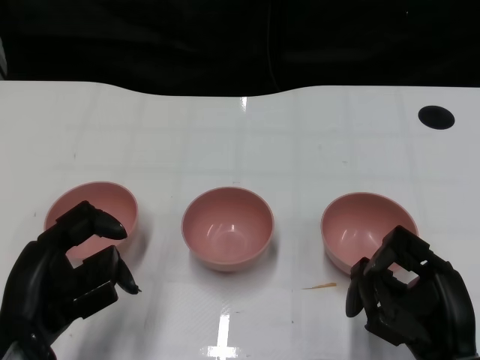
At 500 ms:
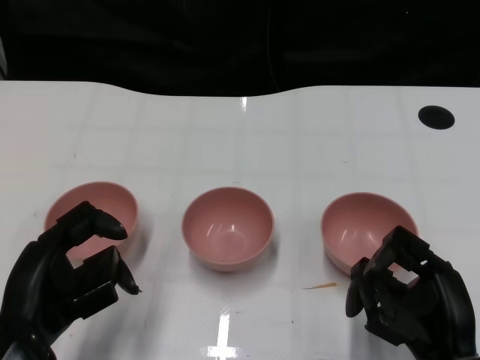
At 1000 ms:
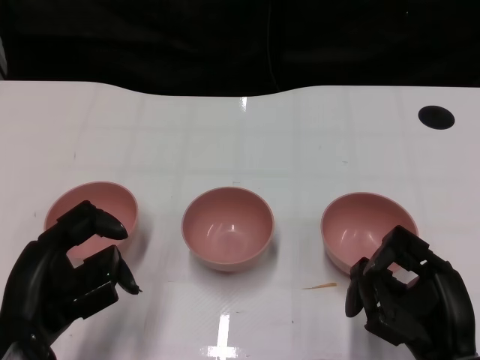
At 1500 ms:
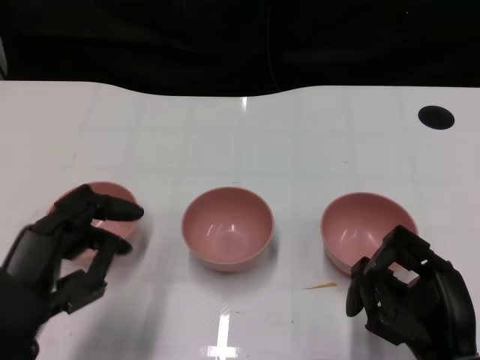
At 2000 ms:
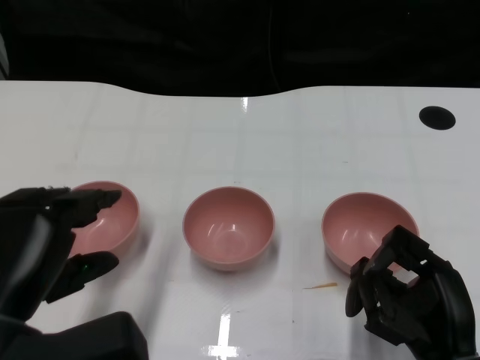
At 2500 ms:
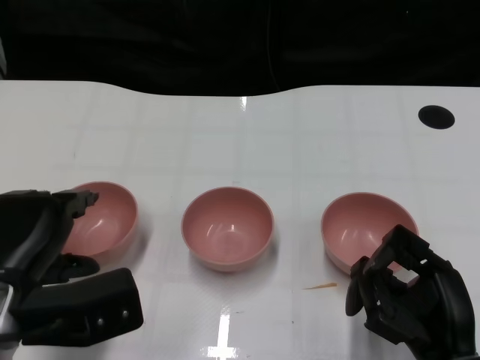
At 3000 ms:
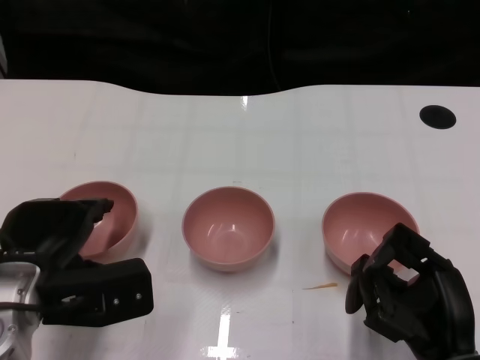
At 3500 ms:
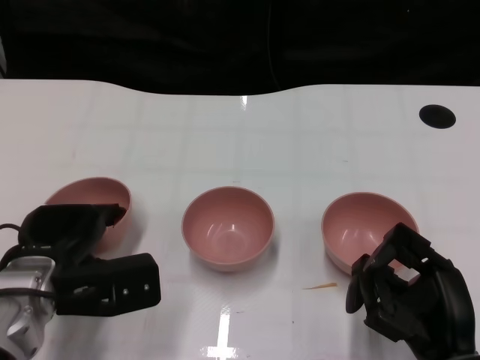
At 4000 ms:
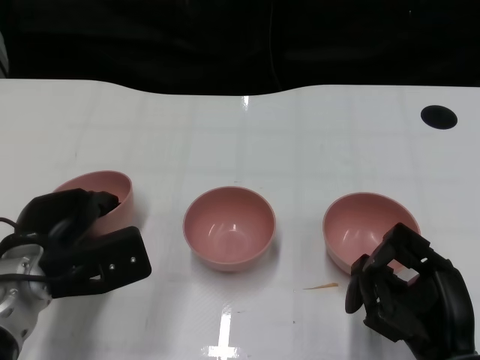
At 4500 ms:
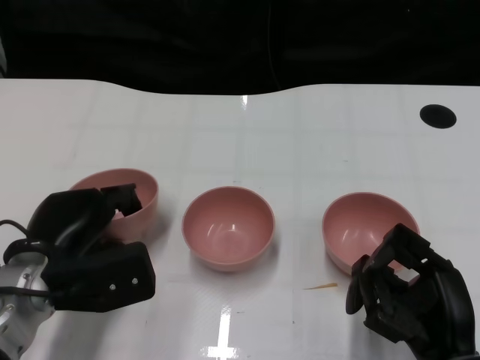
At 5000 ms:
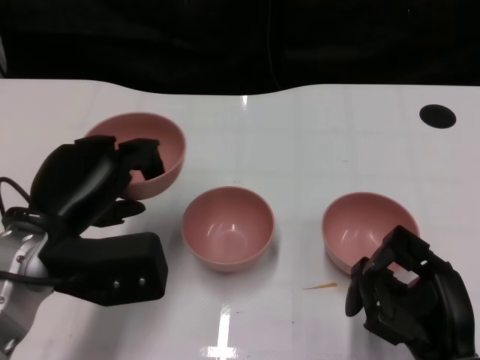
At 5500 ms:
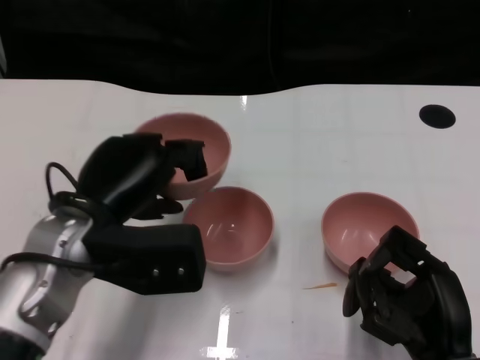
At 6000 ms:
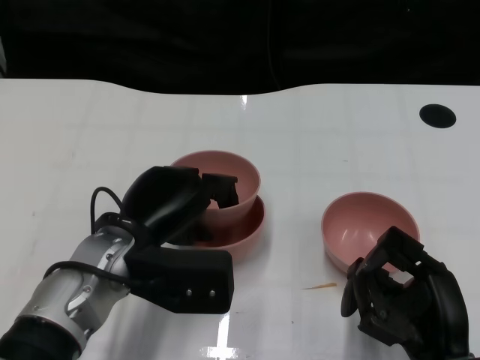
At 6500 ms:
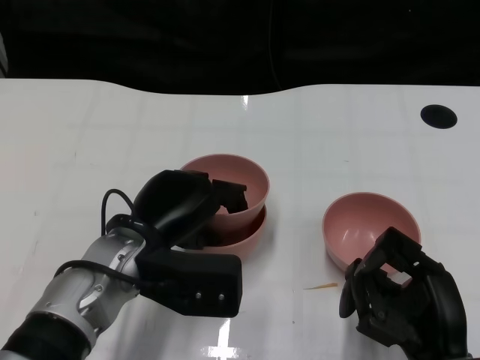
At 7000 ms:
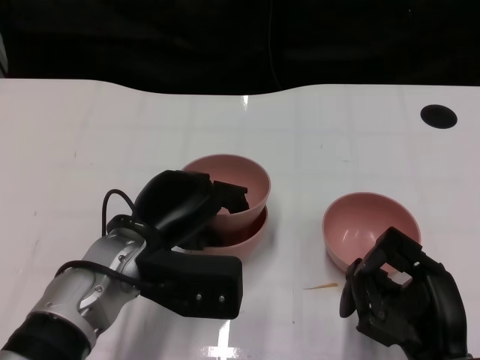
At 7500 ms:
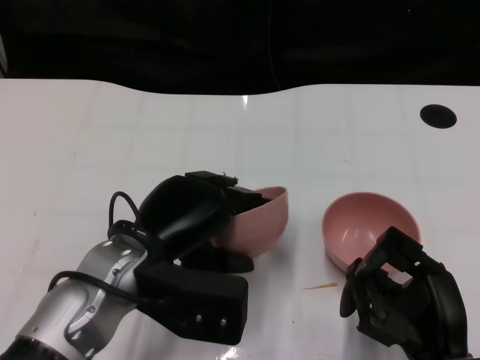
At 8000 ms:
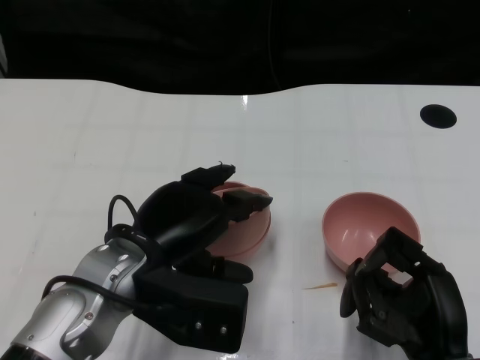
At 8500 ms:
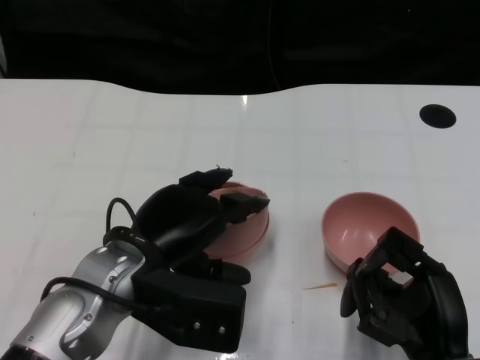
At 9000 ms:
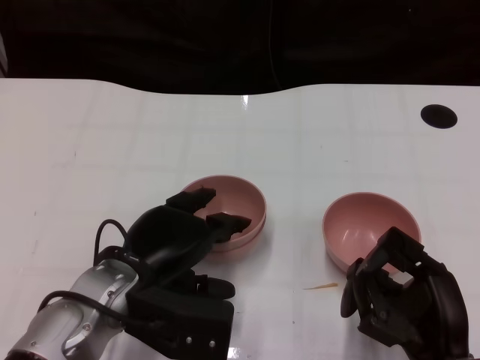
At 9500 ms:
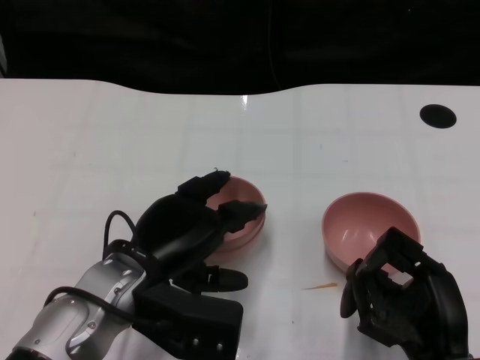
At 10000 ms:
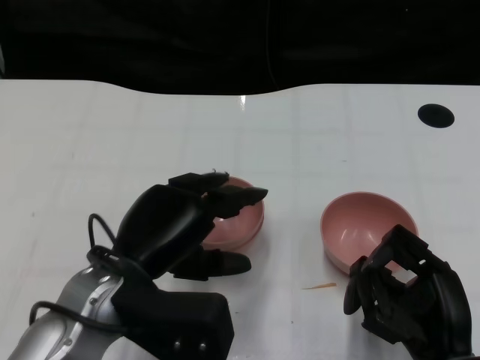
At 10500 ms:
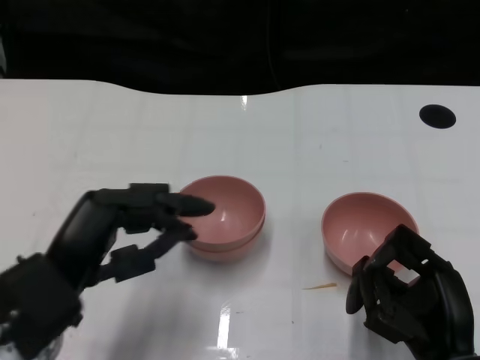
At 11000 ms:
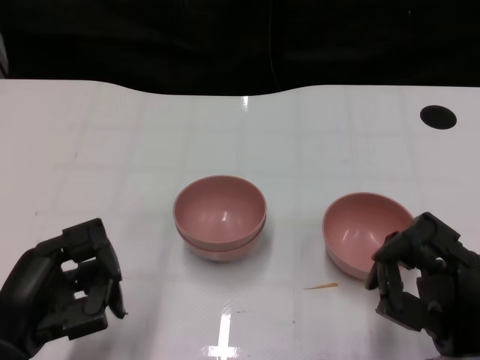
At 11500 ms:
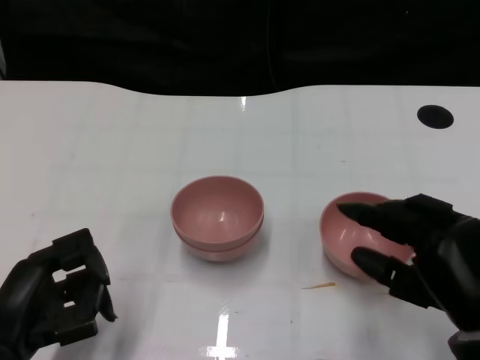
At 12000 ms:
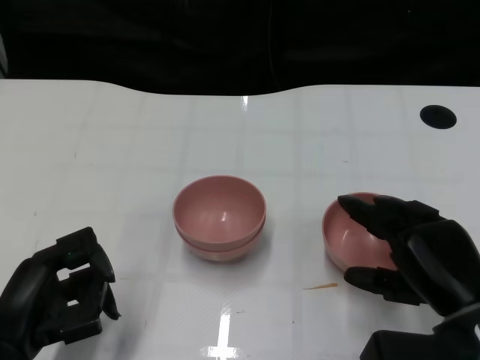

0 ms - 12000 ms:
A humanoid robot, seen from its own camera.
Task of the whole recording: Pick up the bowl on one side of the table and place it on top of the middle bowl, then pick up the bowl on the other side of the table and place it on top of the middle bowls.
Step, 1500 ms - 3500 ms: Grasp the bowl on the left with the left gripper.
Step, 4500 ms - 9500 ms: Place the bowl on the left onto the bowl in the middle with left gripper.
2000 ms - 4000 ms: The left hand heads forward and downward, covering some 15 cm.
4000 ms - 6000 ms: The left hand heads to the right, covering roughly 10 cm.
6000 ms - 10000 ms: The hands move only a little.
10000 ms - 12000 ms: The left hand goes about 15 cm to the left, backward and downward; the right hand moves about 5 cm.

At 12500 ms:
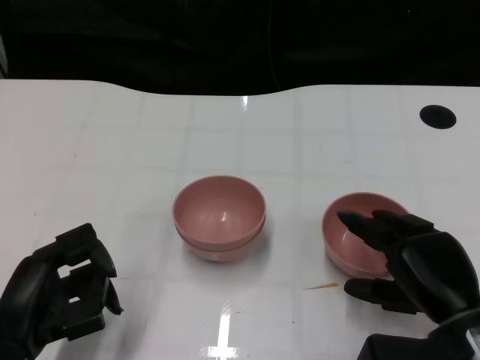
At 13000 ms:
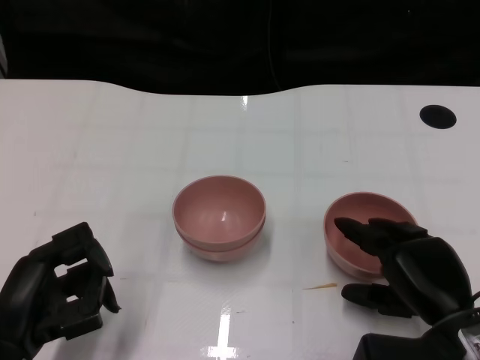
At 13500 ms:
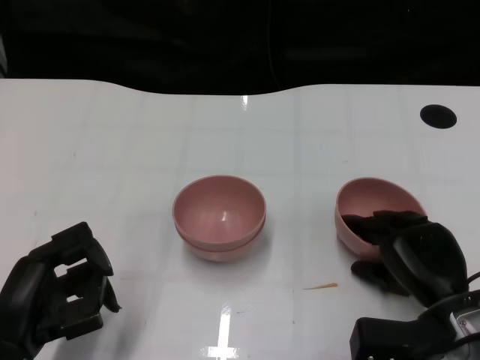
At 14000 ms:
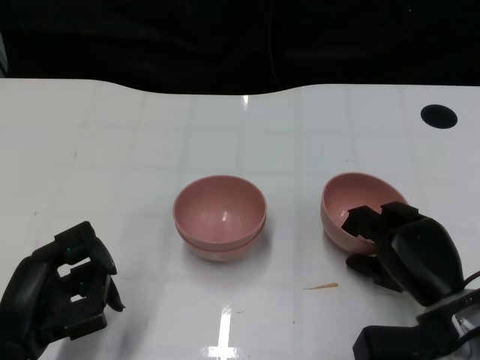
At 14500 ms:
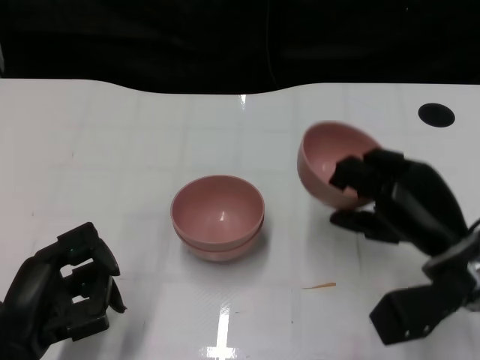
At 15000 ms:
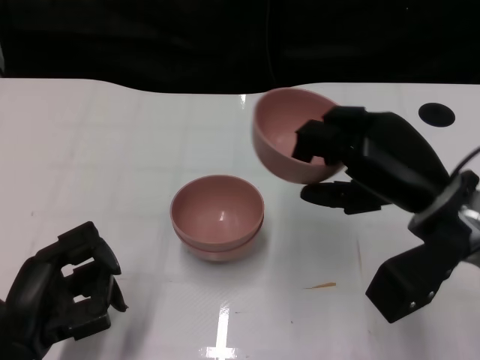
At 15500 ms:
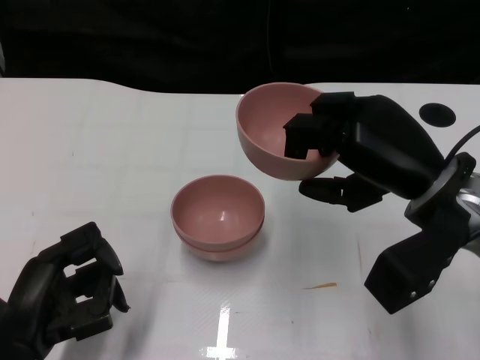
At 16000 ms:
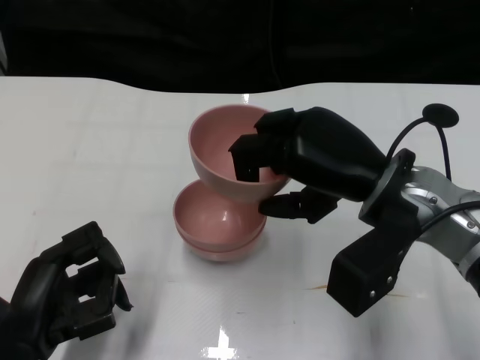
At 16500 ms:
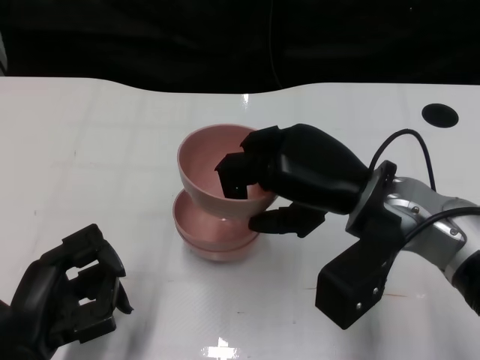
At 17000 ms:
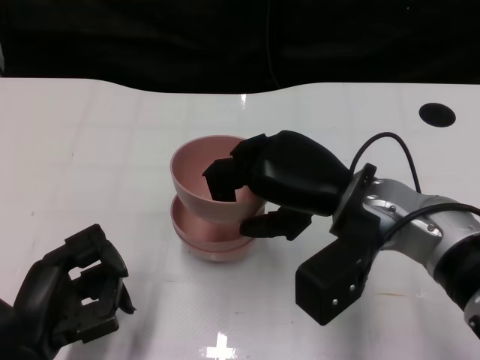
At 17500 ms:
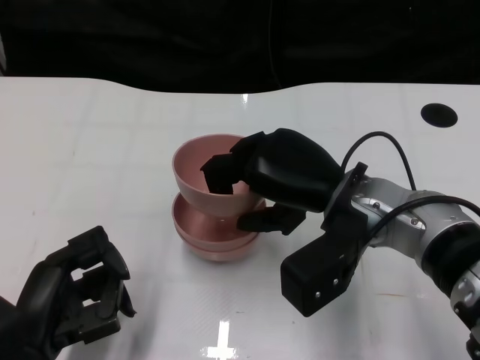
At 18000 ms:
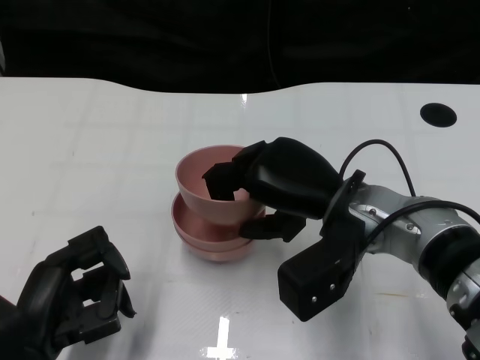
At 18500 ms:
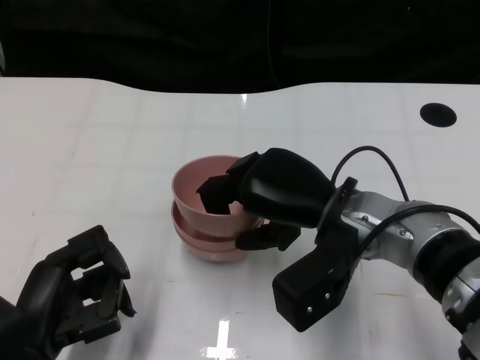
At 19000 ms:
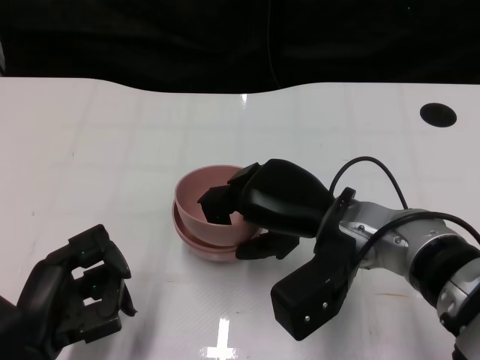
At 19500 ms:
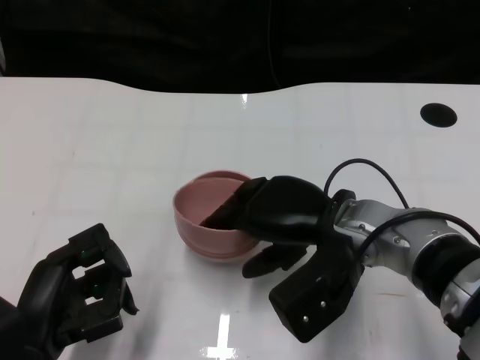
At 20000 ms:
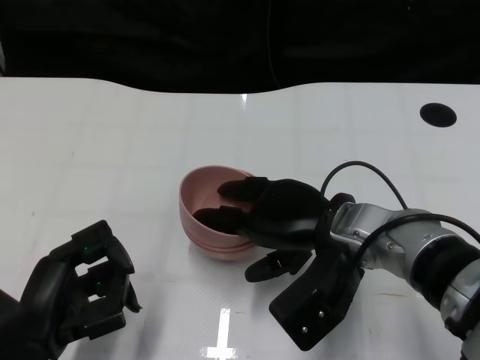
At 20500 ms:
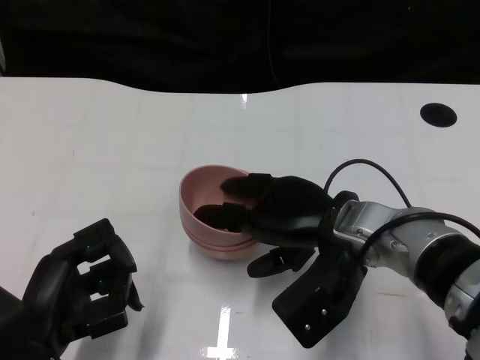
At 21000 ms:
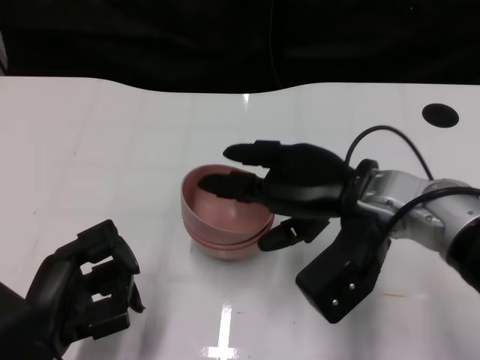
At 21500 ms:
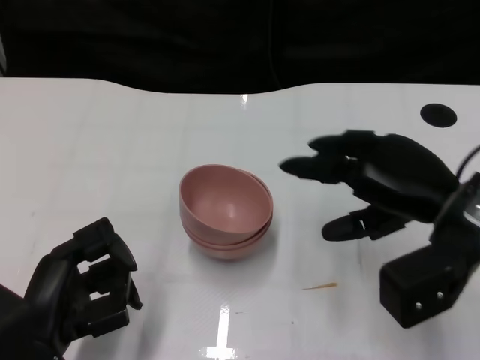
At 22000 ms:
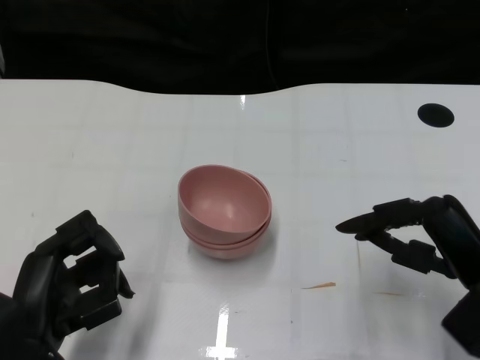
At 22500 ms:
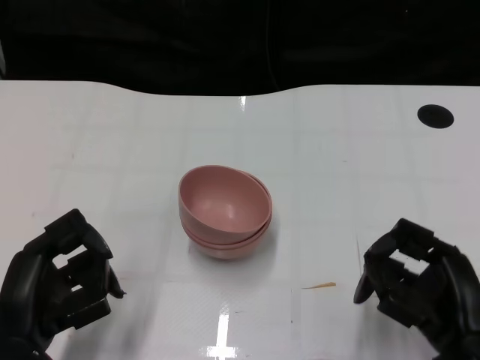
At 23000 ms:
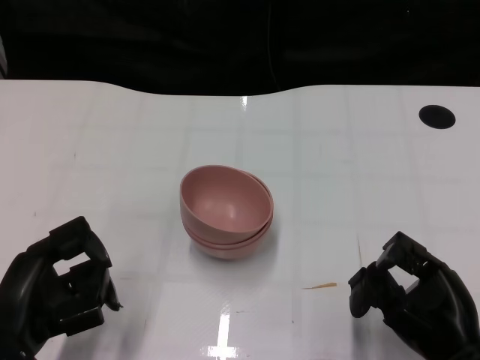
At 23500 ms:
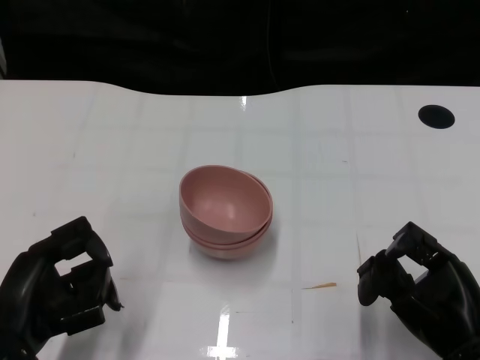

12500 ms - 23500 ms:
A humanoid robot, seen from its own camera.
Task of the whole recording: Pick up the bowl on one side of the table and place it on top of the middle bowl, then pick up the bowl on the other side of the table and place it on top of the middle bowls.
Step, 14500 ms - 20500 ms: Place the bowl on the right onto the bowl in the middle with right gripper.
12500 ms - 14500 ms: The right hand is displaced forward by approximately 5 cm.
14500 ms - 16000 ms: The right hand is displaced upward and to the left by roughly 10 cm.
16000 ms - 18000 ms: The right hand shifts by approximately 5 cm.
20000 ms - 21500 ms: The right hand moves to the right, approximately 10 cm.
21500 ms - 23500 ms: The right hand heads backward and downward, covering some 15 cm.

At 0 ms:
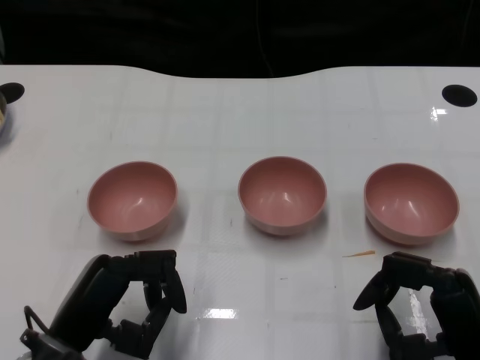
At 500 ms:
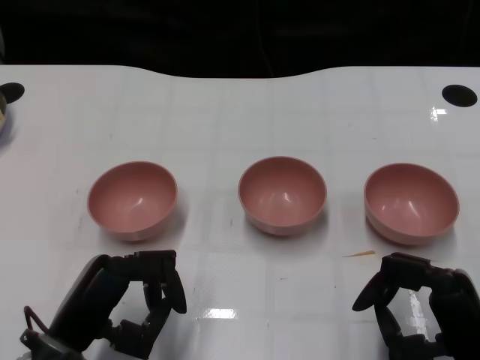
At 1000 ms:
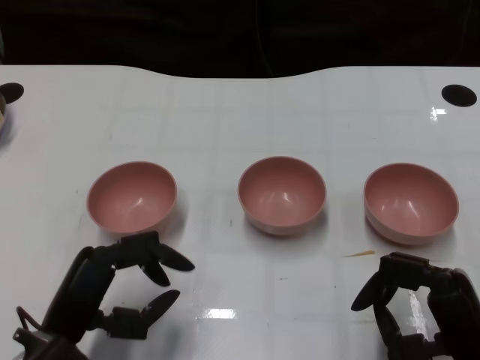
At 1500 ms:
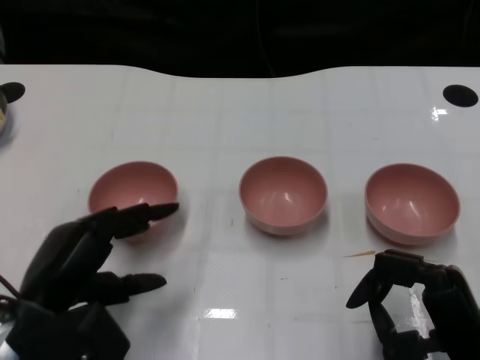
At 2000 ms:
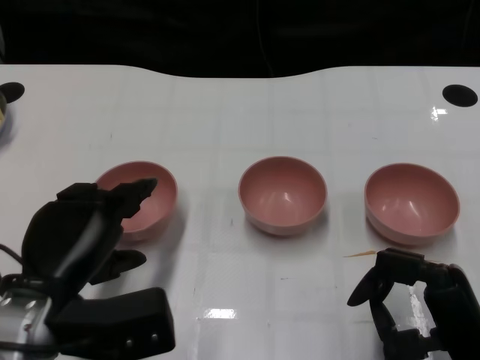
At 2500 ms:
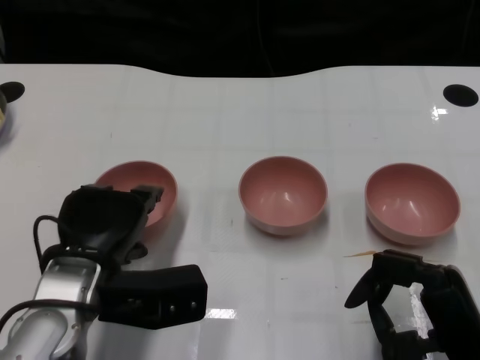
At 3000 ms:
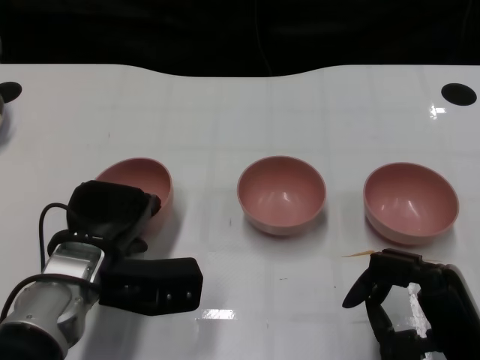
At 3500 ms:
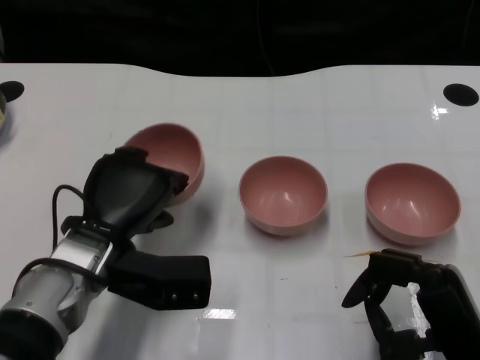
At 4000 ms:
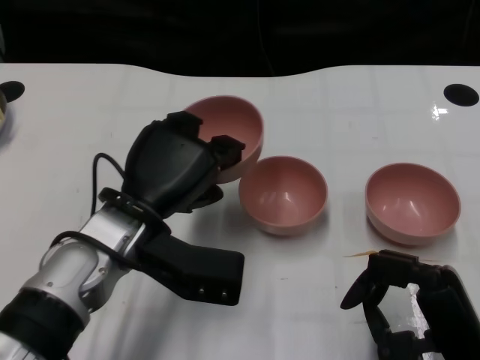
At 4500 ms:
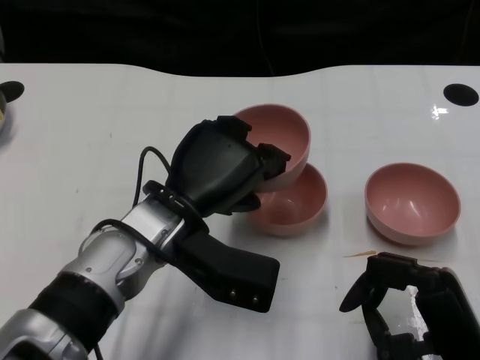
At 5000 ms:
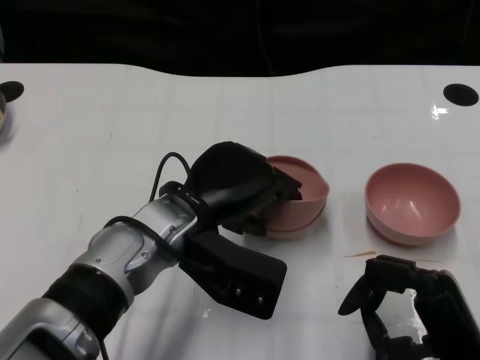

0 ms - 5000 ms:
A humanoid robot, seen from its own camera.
Task of the whole recording: Pick up the bowl on one side of the table and place it on top of the middle bowl, then pick up the bowl on the other side of the table and place it on top of the middle bowls.
Step, 1000 ms - 3000 ms: Grasp the bowl on the left with the left gripper.
2500 ms - 5000 ms: The left hand travels to the right by some 10 cm.
